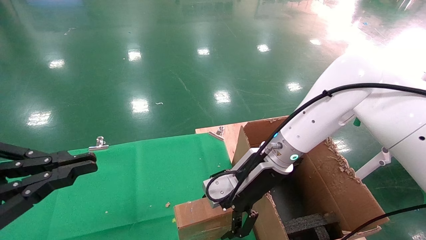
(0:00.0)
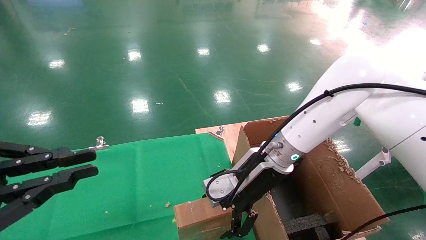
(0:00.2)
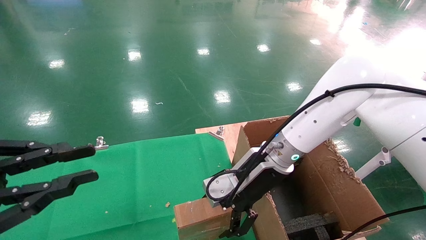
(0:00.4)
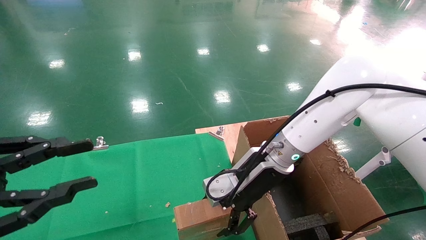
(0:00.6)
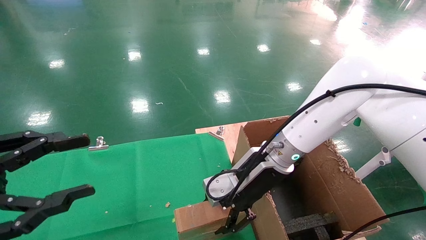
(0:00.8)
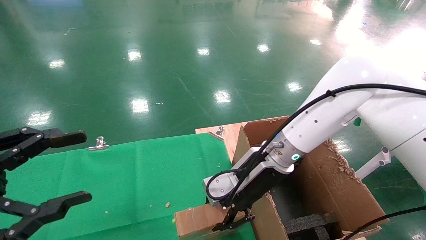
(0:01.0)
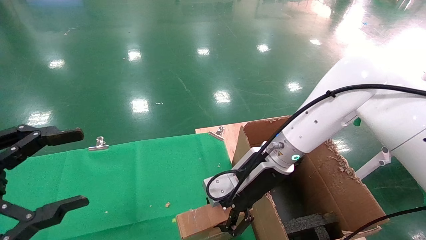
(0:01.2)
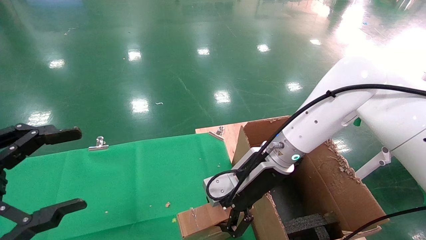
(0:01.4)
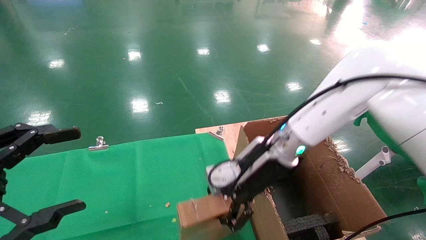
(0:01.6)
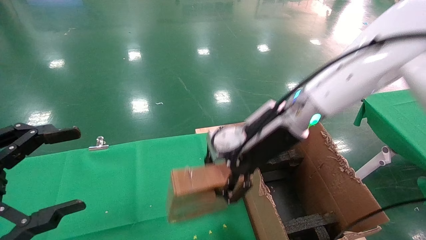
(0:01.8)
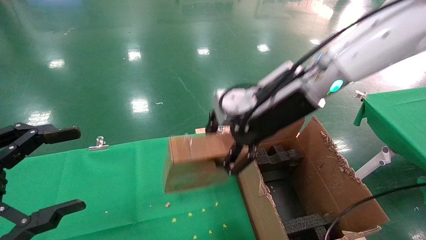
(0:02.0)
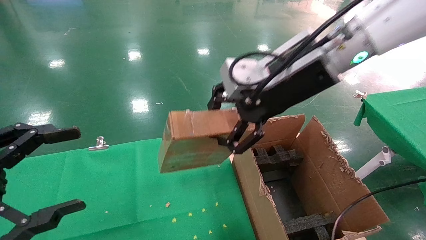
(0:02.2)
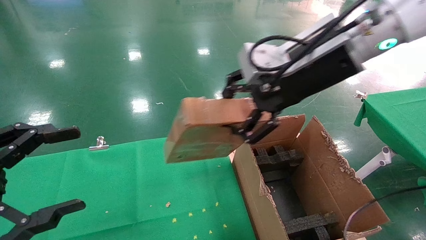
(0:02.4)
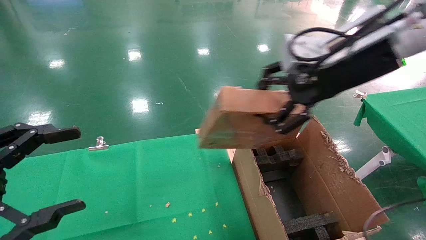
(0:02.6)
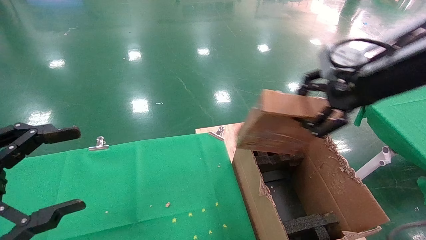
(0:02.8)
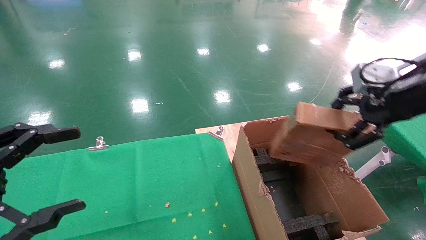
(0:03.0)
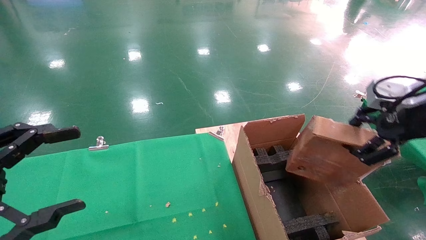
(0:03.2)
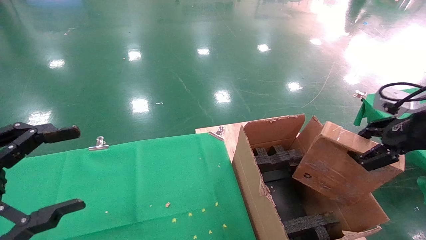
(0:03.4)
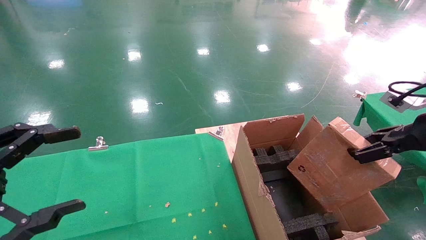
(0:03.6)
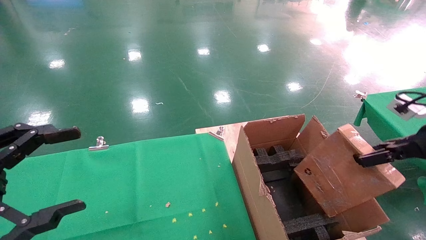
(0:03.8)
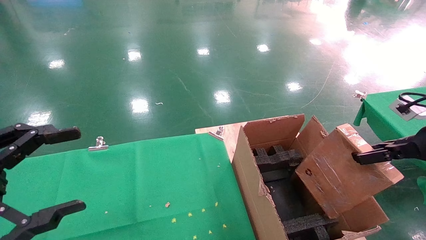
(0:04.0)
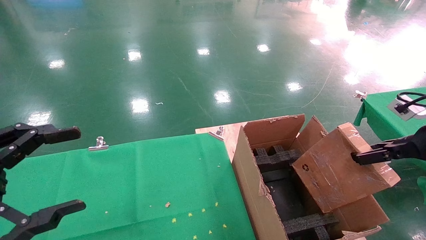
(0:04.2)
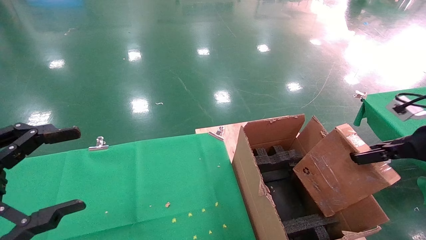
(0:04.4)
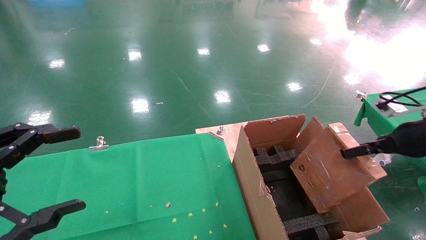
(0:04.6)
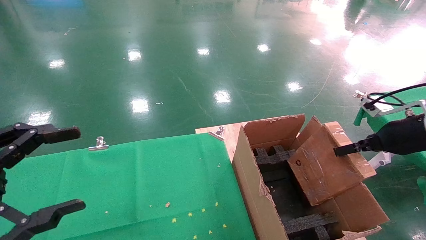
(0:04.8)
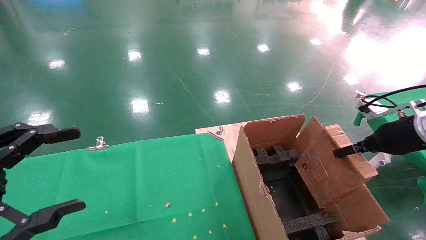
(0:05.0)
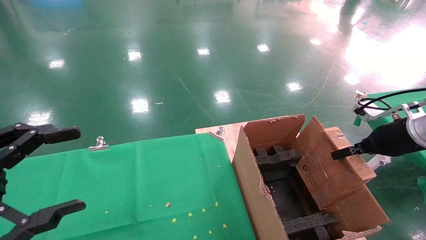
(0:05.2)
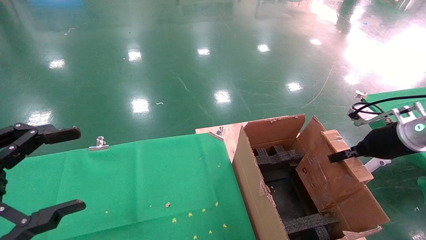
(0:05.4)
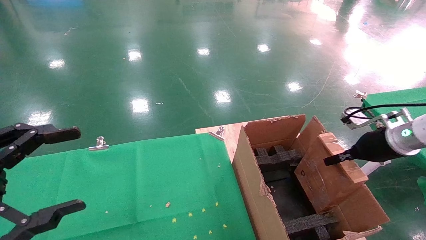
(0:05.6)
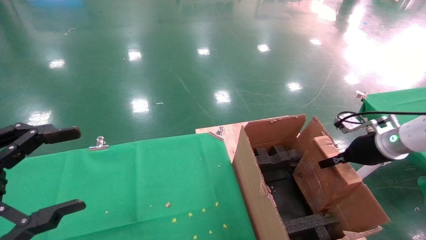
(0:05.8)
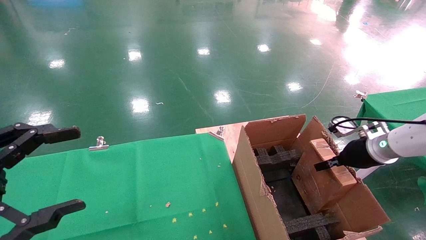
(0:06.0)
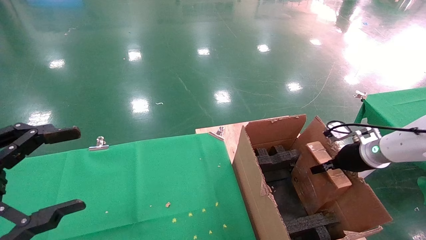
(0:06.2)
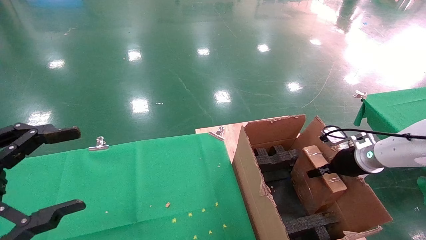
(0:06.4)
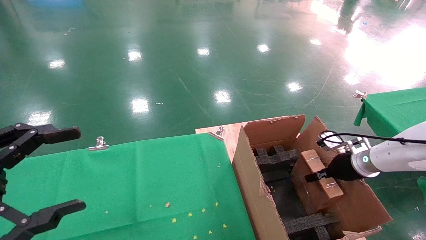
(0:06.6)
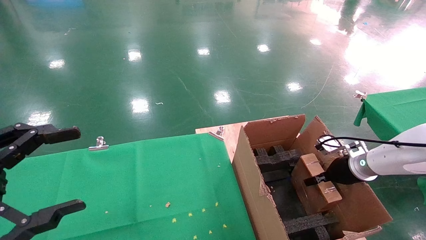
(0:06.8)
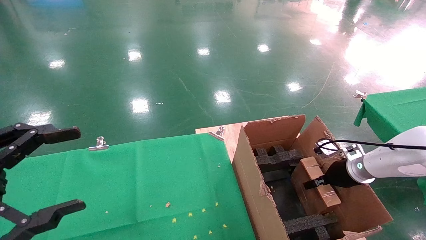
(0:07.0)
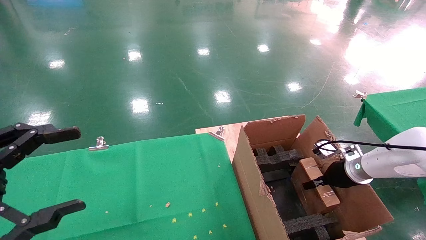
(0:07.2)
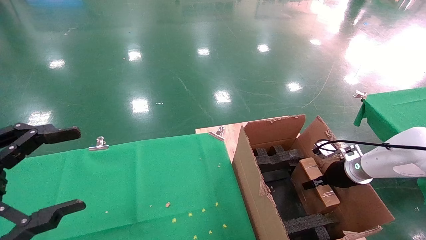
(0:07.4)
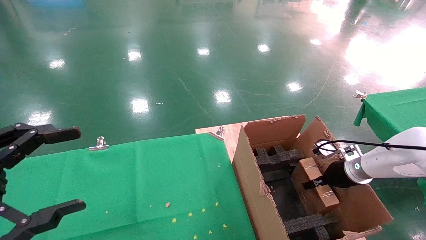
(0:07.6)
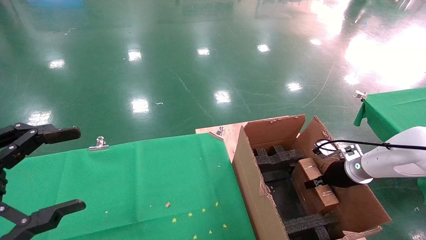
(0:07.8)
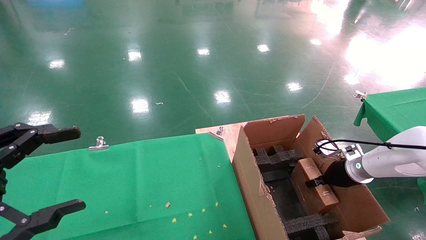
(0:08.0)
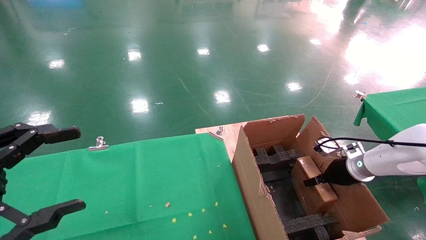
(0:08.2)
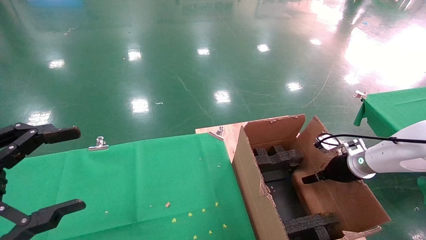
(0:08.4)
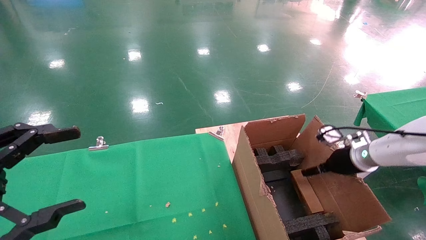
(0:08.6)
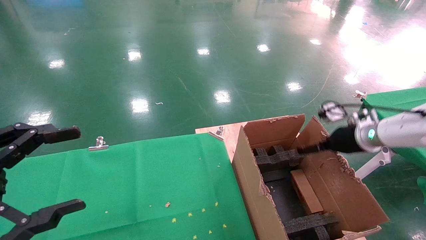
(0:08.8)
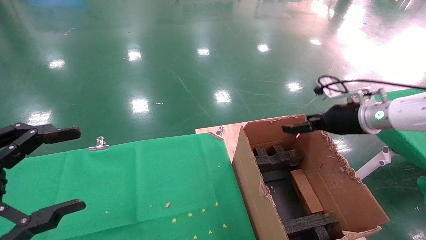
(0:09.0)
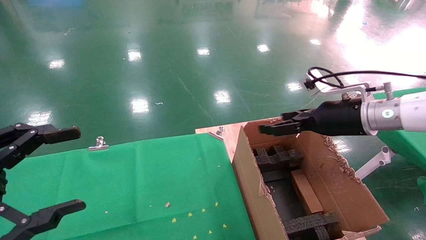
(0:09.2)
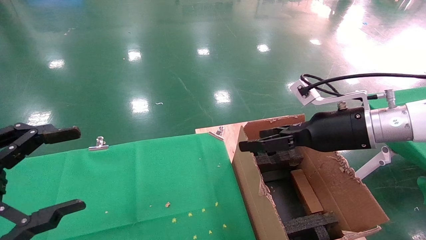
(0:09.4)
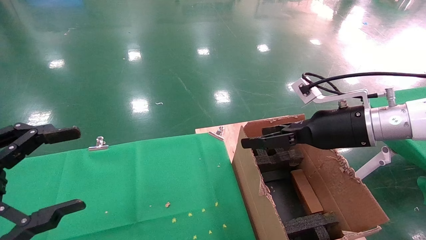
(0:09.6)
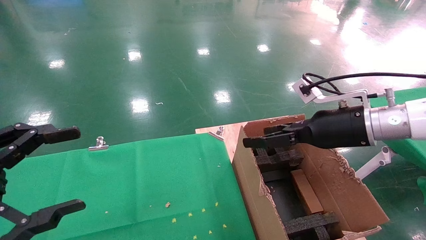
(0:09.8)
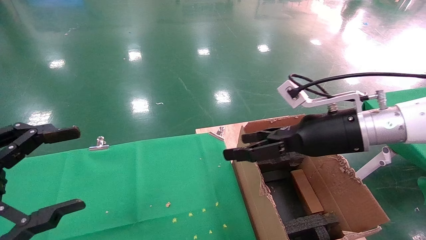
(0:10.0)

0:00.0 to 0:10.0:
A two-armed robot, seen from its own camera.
Task of the whole recording: using a robotic arm to pick up a cardboard box and palace it the carton.
Step, 0:01.2 to 0:08.4: Place the mouse and the power cord paper box into the container.
0:00.0 to 0:01.4: The right gripper closes its fingers. Meanwhile the left gripper opens.
0:01.4 to 0:02.8: The right gripper heads upward, to the right and backward, covering about 25 cm.
0:02.8 to 0:04.2: The right gripper heads to the right and downward, covering some 20 cm.
0:04.2 to 0:05.8: The right gripper is displaced forward, downward and to the left by some 15 cm.
0:05.8 to 0:07.2: The right gripper shifts roughly 10 cm downward.
0:07.2 to 0:08.6: The right gripper opens up.
0:08.6 to 0:10.0: The right gripper is displaced to the left, upward and backward by approximately 25 cm.

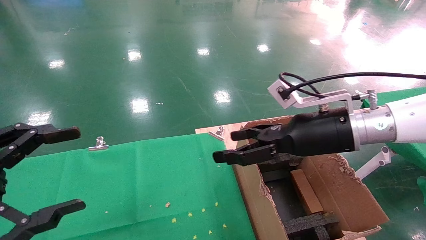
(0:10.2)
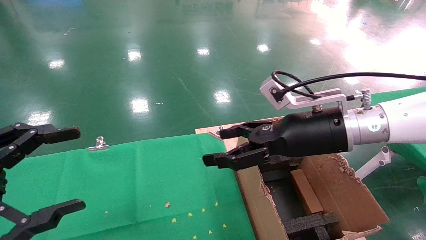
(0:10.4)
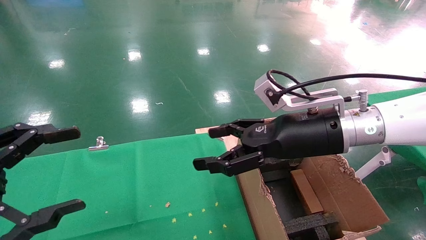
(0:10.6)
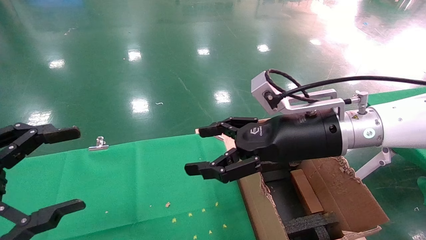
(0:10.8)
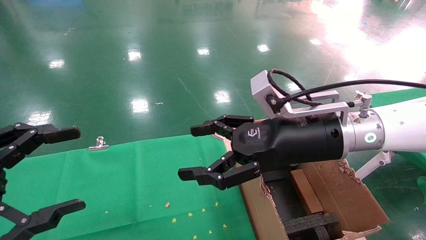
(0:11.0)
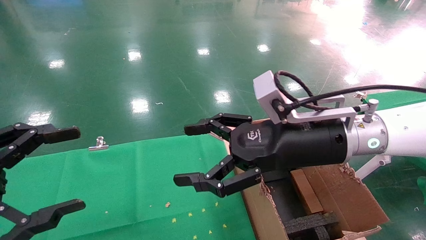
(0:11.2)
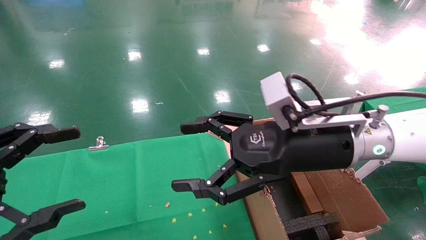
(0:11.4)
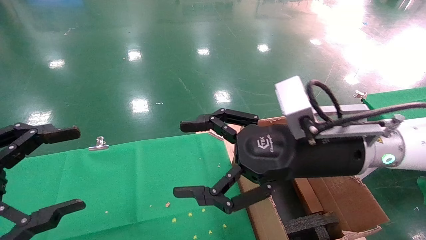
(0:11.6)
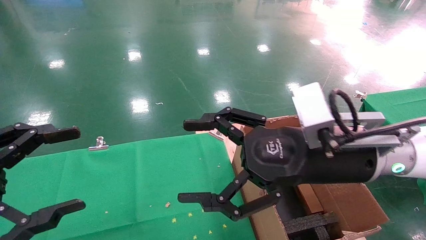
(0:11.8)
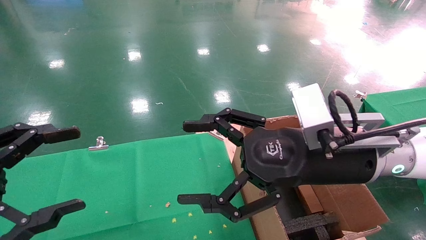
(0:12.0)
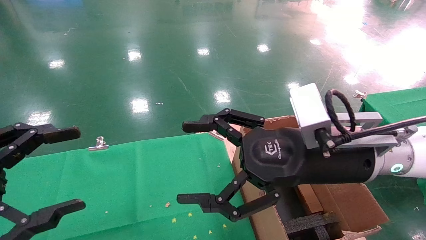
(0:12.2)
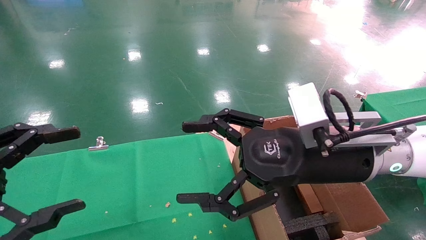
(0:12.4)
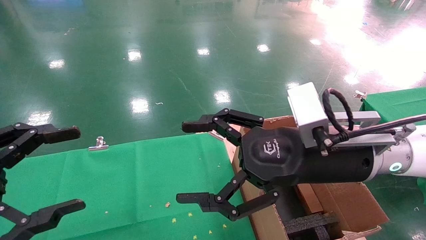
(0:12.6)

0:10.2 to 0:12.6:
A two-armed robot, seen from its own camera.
Task of the whole recording: using a robotic arm to pick up a cardboard box and palace it the carton.
0:10.2 to 0:11.4: The right gripper heads backward, covering roughly 5 cm.
0:11.4 to 0:12.6: The grippers make only small movements.
